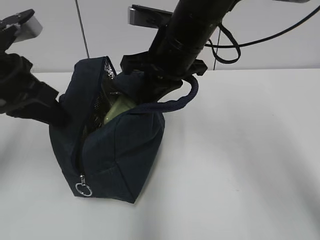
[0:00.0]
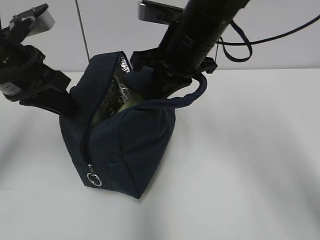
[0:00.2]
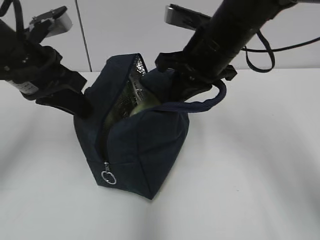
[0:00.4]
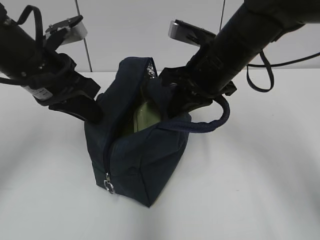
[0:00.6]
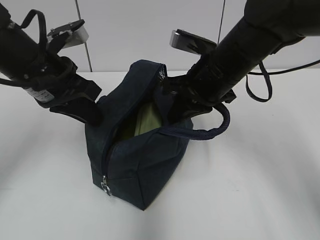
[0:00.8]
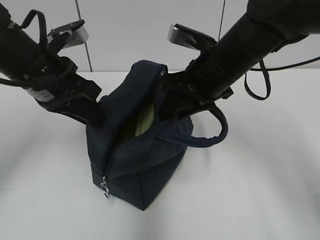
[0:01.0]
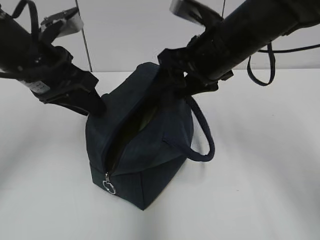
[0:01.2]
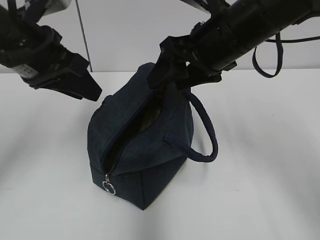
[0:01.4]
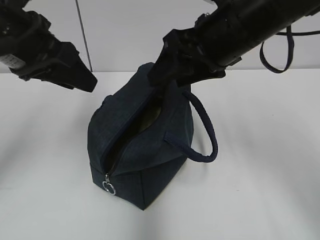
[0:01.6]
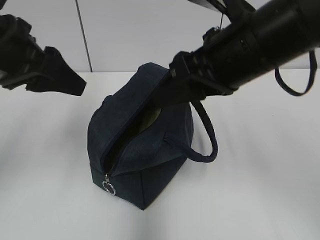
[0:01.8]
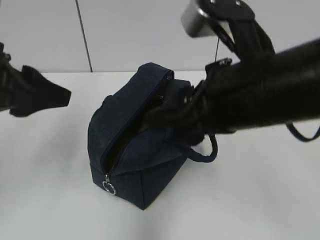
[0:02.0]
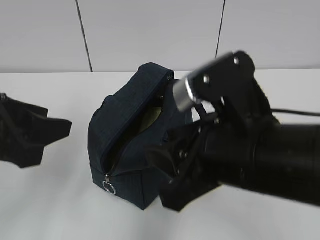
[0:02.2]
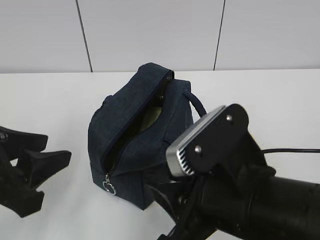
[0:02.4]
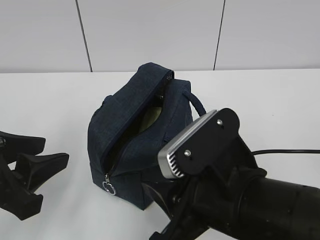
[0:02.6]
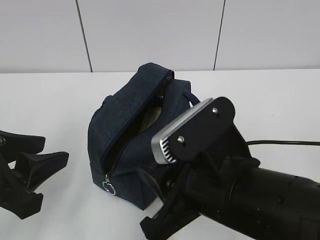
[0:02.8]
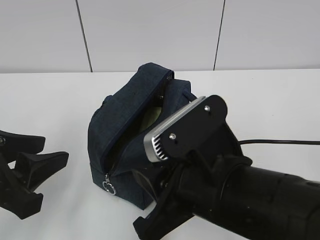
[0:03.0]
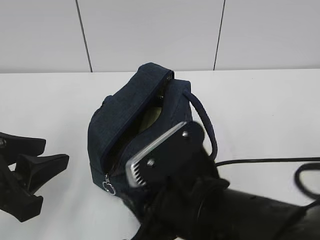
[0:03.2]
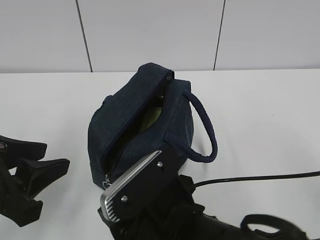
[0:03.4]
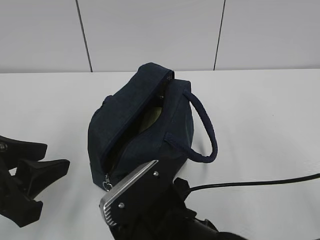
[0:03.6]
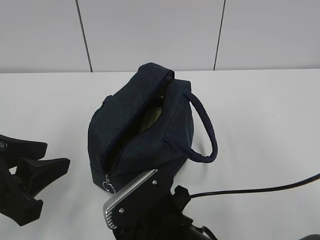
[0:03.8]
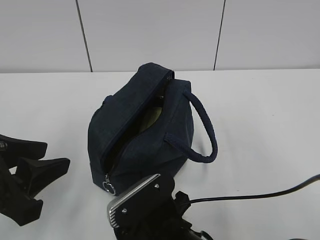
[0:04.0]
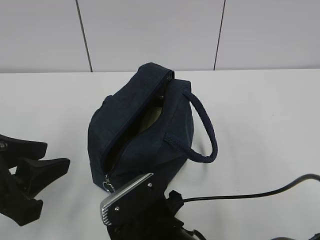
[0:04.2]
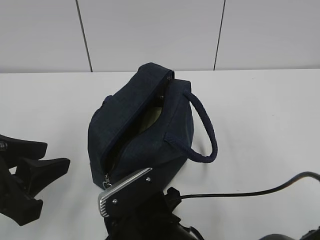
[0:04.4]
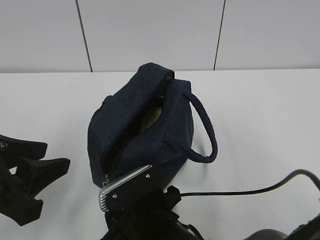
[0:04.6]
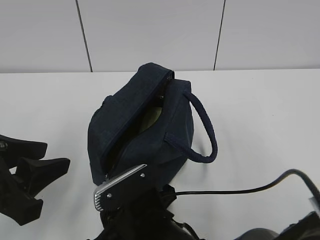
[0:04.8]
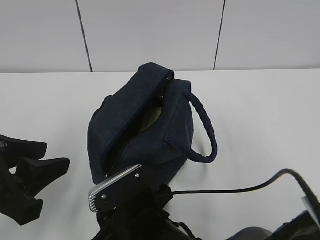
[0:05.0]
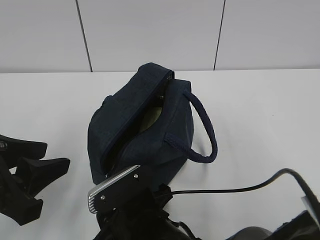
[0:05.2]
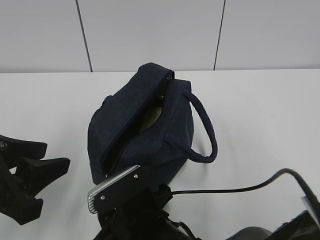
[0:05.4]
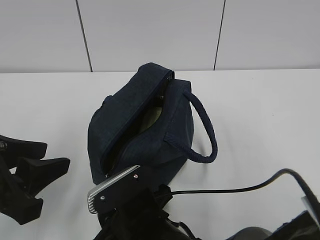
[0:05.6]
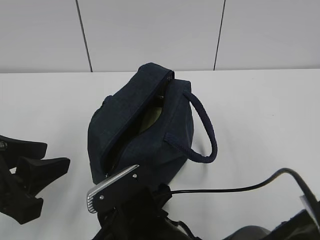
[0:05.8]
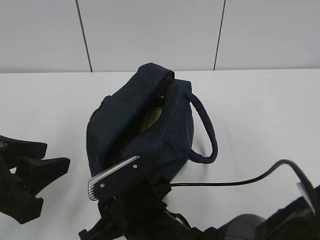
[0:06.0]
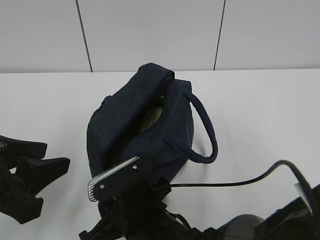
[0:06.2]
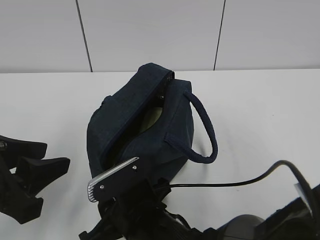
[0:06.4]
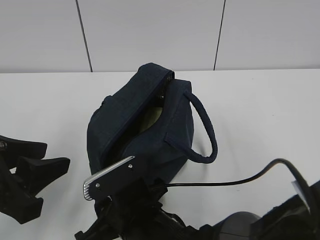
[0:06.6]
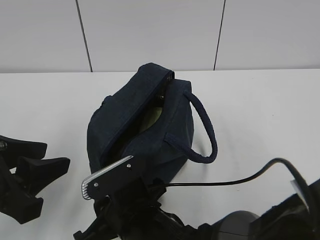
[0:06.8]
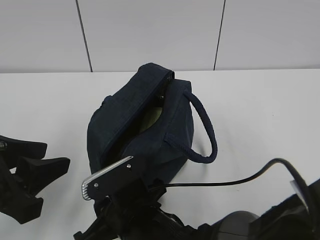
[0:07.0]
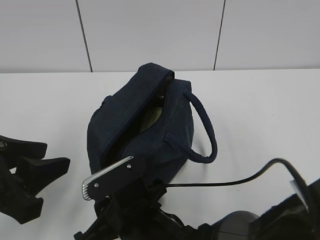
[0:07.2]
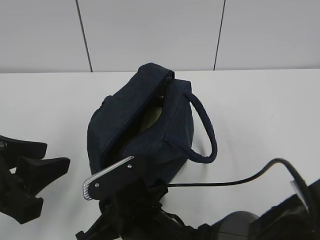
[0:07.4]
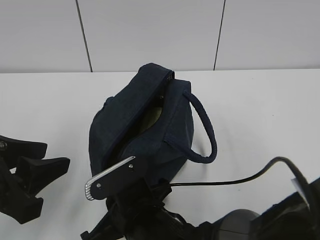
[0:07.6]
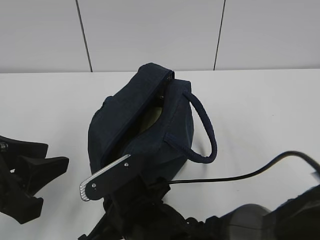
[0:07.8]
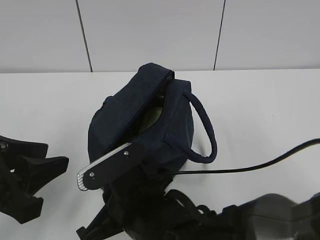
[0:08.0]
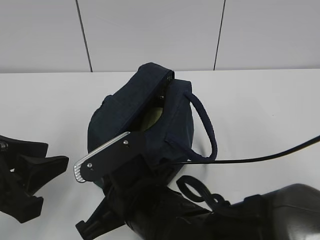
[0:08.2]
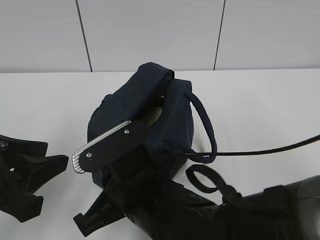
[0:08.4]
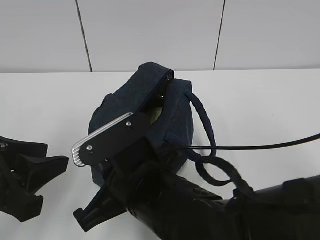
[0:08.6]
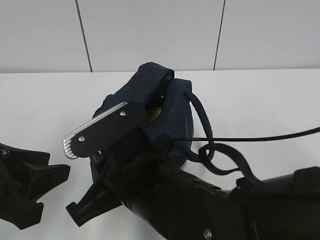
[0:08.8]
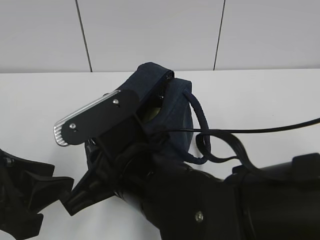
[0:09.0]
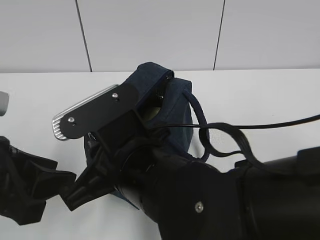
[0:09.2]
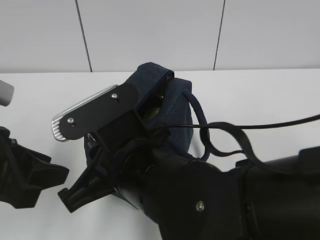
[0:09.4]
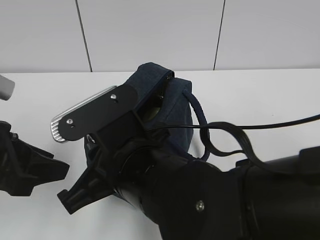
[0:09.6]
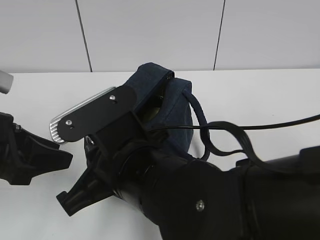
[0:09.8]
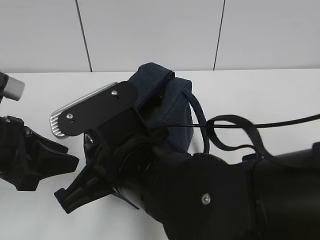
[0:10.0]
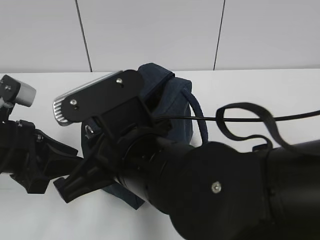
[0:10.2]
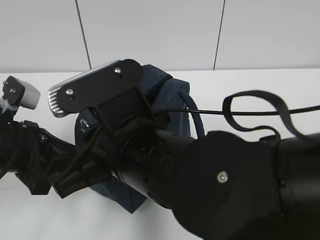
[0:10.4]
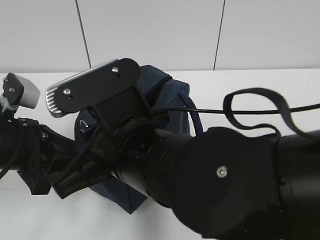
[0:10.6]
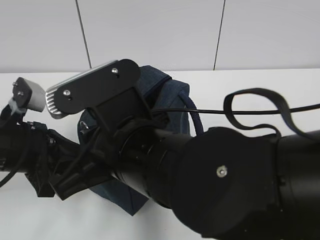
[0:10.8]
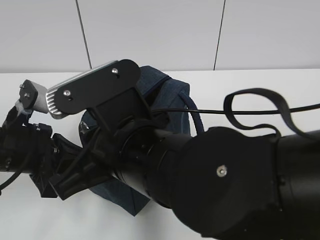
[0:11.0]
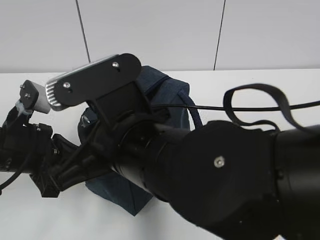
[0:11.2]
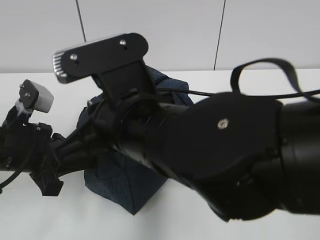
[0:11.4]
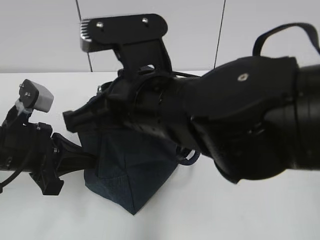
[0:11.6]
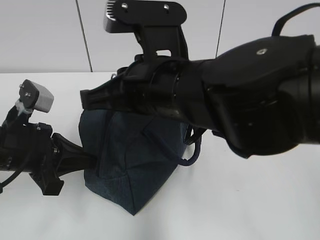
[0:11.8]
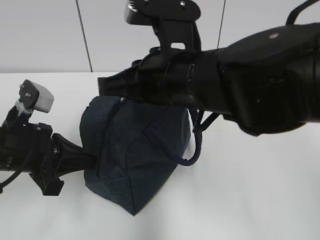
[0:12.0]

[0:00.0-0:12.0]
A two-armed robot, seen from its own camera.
Step, 0:00.0 to 0:01.0: Move the lunch bag to the right.
Step, 0:01.2 to 0:11.2: Grab the lunch bag with your left hand.
0:00.0 to 0:01.6: The left gripper ends up some 5 cm from where it was, and opens up. Meanwhile the right gripper is displaced to the right by about 5 cm, and opens up.
0:01.6 to 0:03.0: Both grippers travel together backward and downward, roughly 15 cm. The right gripper closes.
0:03.0 to 0:04.4: The right gripper moves downward and to the left, roughly 15 cm.
0:04.4 to 0:06.0: The grippers move only a little.
0:06.0 to 0:07.6: The right gripper closes up.
0:07.6 to 0:09.0: The right gripper is displaced upward by some 10 cm.
0:09.0 to 0:10.4: The left gripper shifts roughly 10 cm forward.
0:10.4 to 0:12.0: The right gripper is displaced forward and to the right by approximately 10 cm; the left gripper closes up.

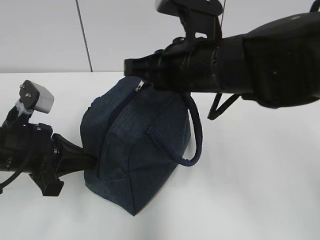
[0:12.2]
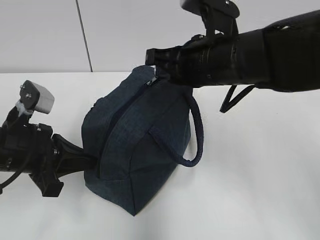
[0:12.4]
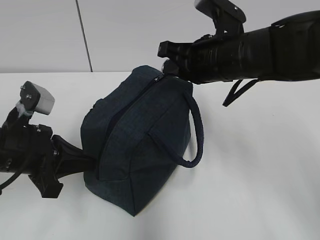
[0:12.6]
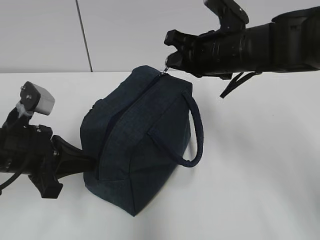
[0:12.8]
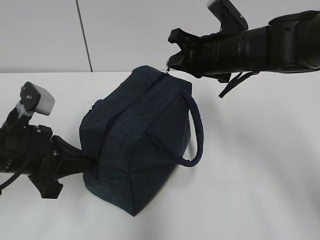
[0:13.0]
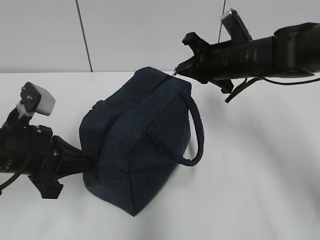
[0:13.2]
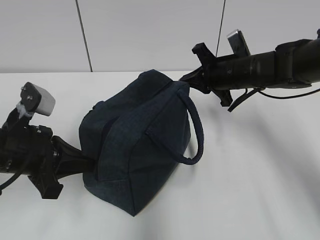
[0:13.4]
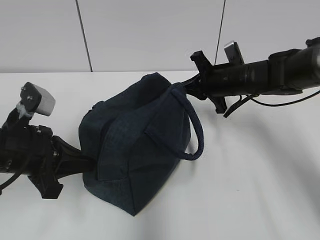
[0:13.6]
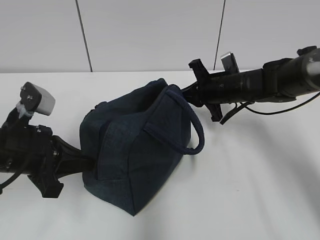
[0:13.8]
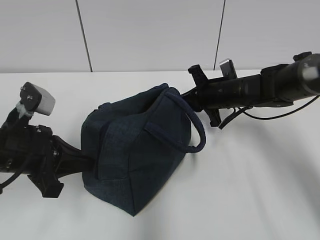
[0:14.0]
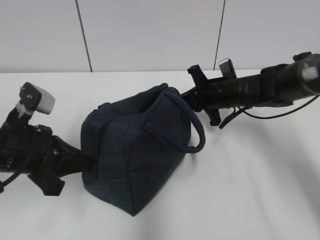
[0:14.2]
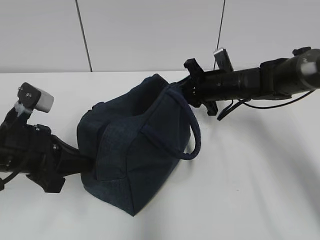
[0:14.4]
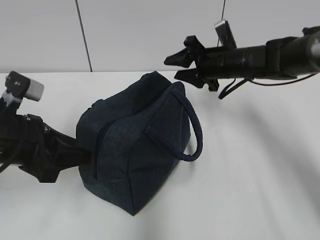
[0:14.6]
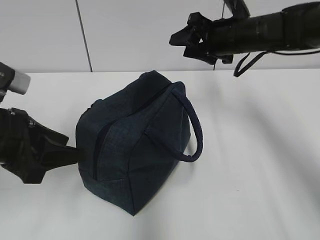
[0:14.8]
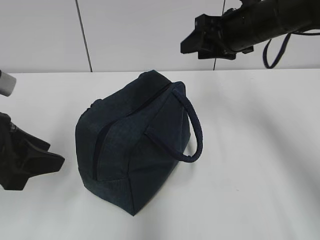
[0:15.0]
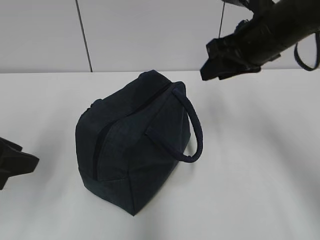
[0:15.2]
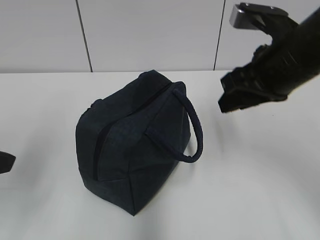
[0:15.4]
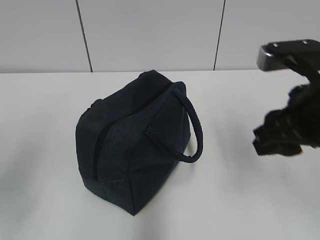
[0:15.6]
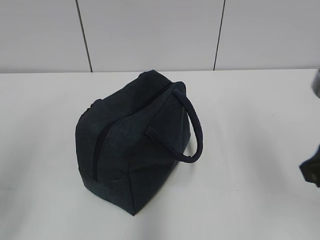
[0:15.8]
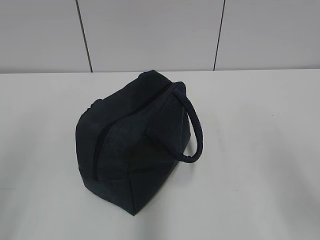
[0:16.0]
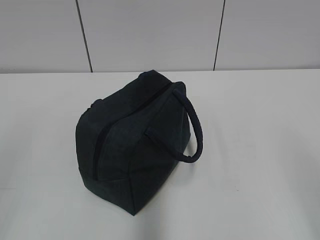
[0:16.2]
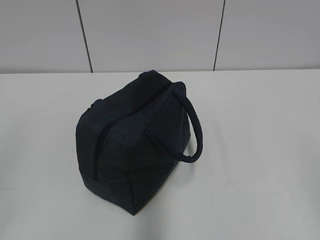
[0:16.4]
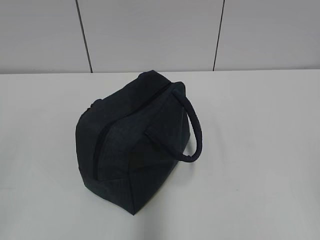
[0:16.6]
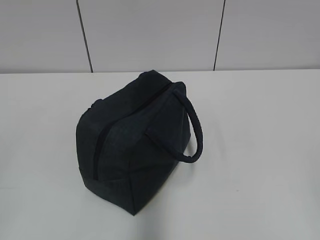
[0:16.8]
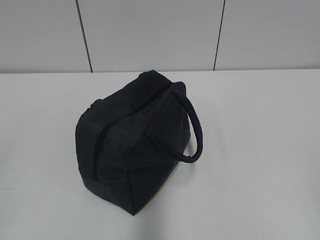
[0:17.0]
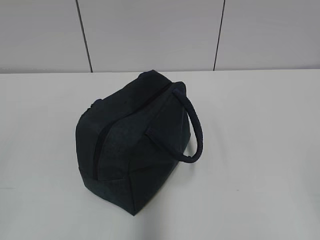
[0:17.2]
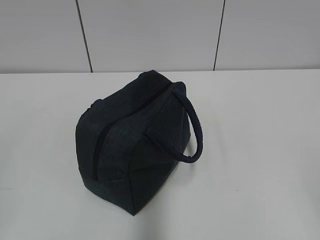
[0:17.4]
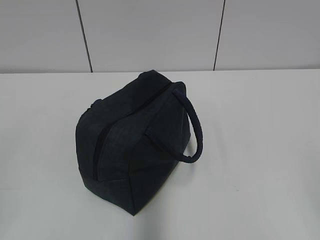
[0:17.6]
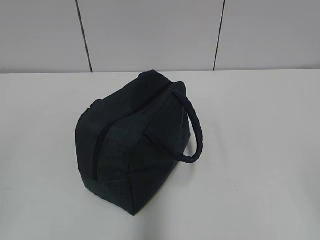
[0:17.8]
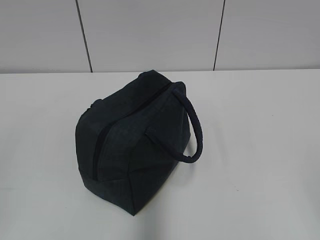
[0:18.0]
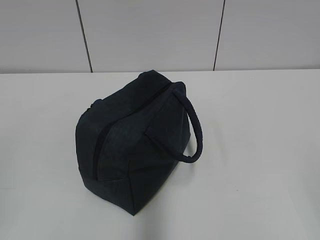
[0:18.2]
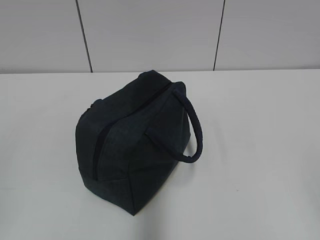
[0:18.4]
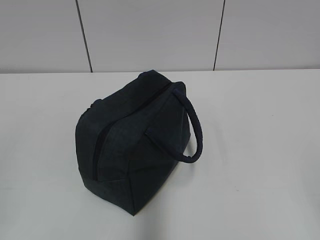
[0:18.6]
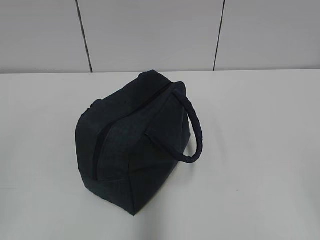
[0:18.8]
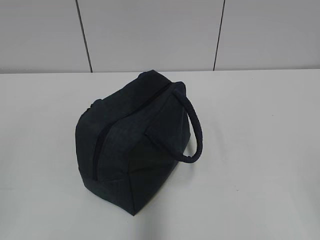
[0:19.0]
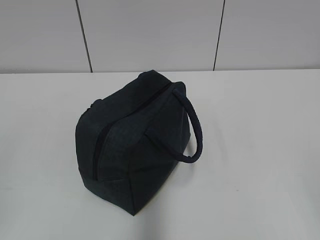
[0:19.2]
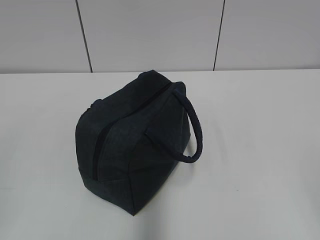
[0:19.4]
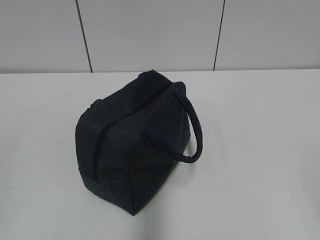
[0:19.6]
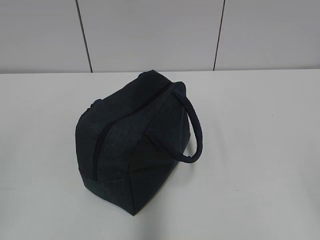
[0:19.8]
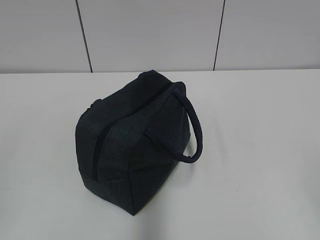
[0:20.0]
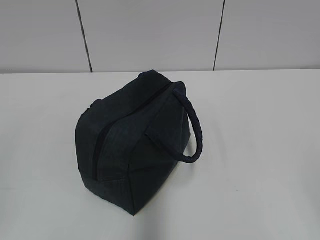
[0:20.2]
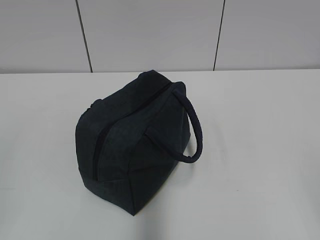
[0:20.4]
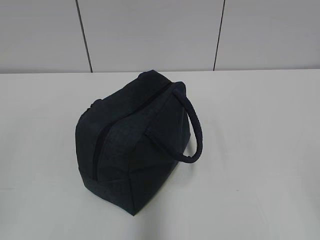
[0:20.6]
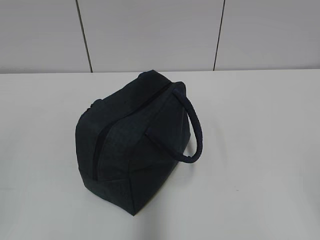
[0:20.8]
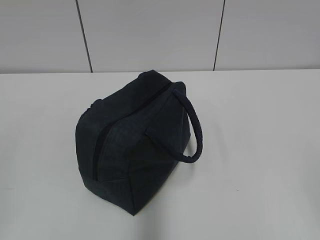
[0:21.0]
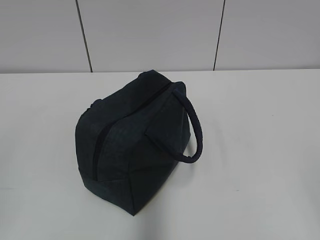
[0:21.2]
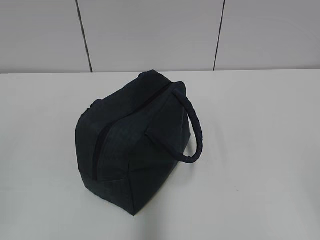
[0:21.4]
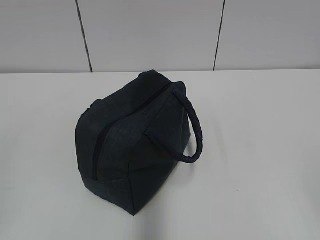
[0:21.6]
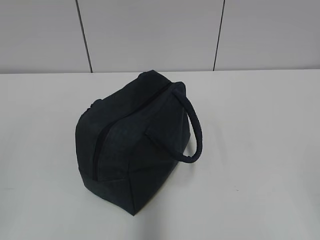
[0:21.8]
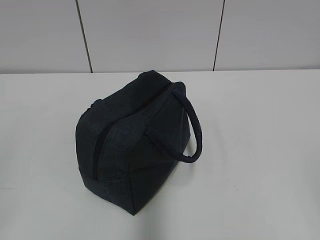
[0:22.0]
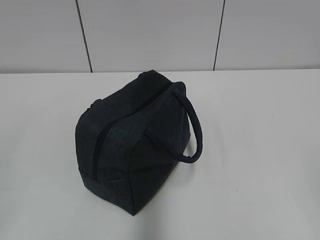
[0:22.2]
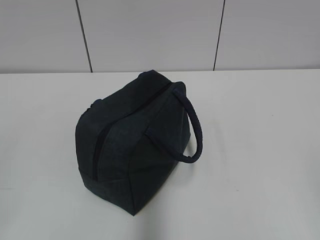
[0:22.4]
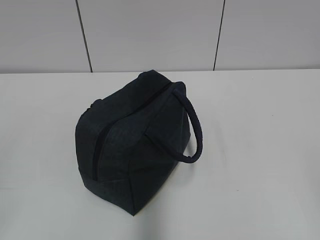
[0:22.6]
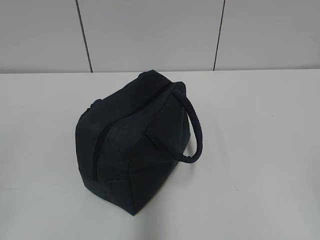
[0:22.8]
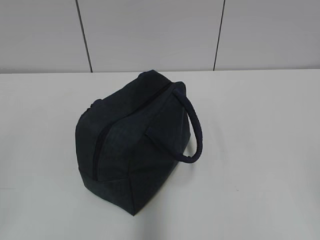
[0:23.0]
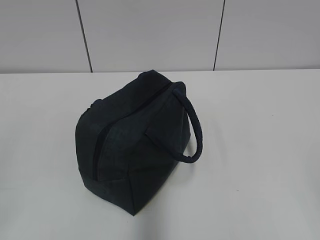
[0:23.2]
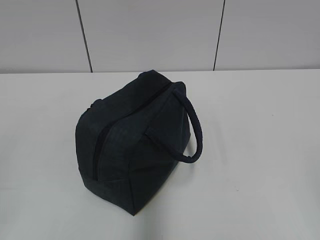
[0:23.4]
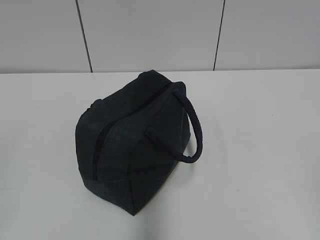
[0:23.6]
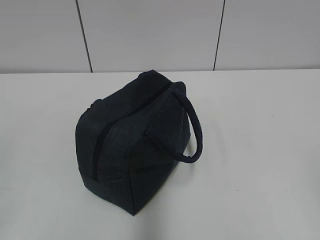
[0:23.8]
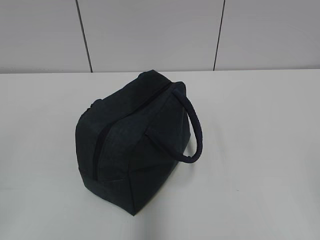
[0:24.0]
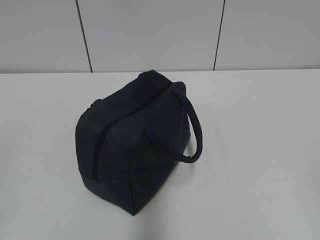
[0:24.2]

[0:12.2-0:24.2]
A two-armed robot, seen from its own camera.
Step, 0:12.2 to 0:14.0: Pull the zipper with your right hand.
0:12.2 to 0:13.8: The right gripper travels forward, downward and to the right by approximately 25 cm.
0:13.8 to 0:15.2: The left gripper is displaced upward and backward by some 10 cm, and opens its fingers, while the right gripper travels upward and backward by roughly 20 cm, and opens up.
0:15.2 to 0:16.6: The right gripper goes about 35 cm backward. Meanwhile the left gripper is displaced backward by some 20 cm.
0:18.2 to 0:21.2: Both grippers stay put.
0:22.6 to 0:24.2: Both grippers stay put.
